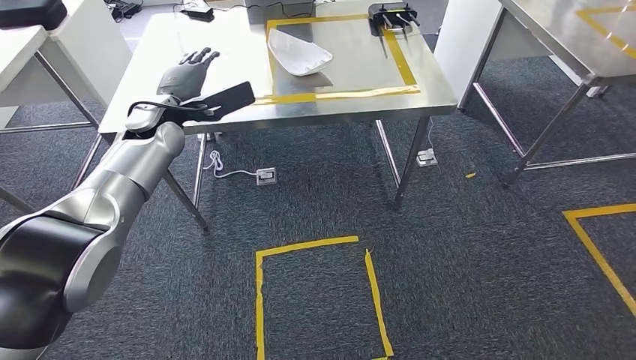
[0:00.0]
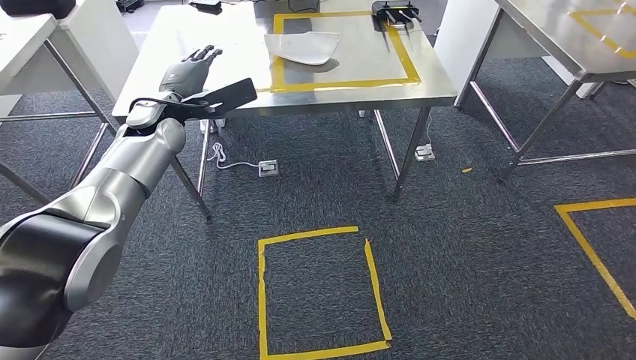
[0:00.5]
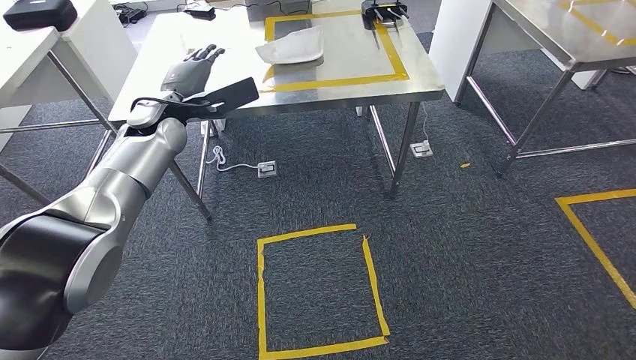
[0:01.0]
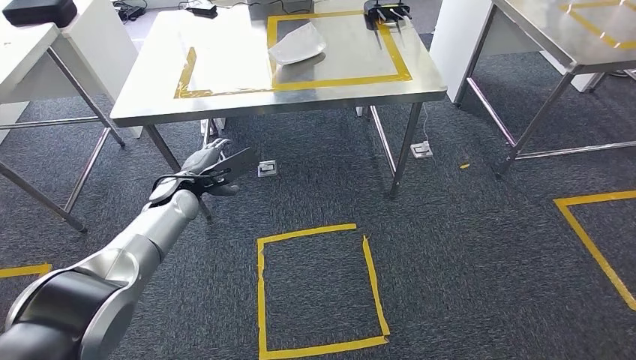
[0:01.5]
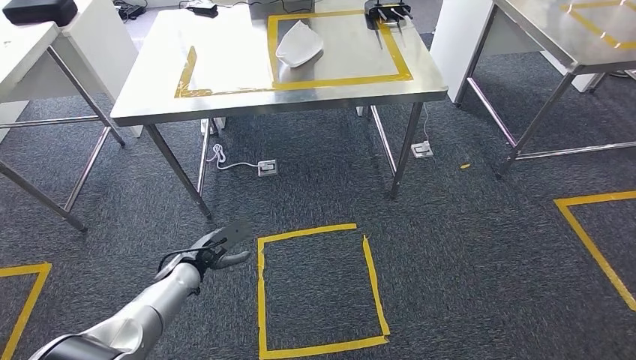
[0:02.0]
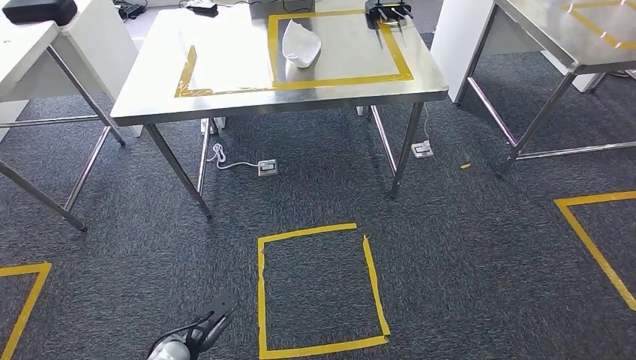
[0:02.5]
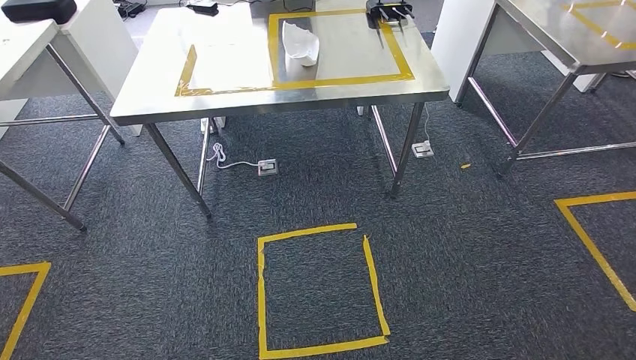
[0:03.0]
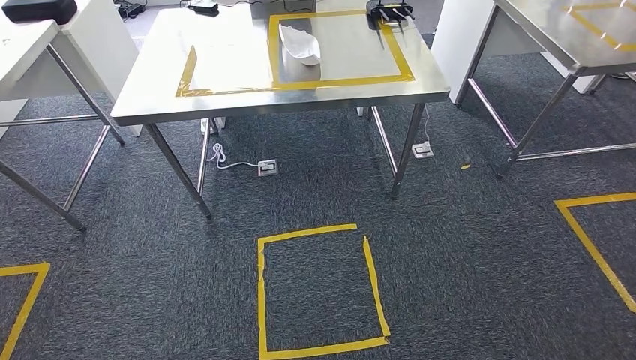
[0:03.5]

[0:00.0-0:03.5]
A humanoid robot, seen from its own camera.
Step, 0:00.0 to 0:03.5: Move to the initial position at the workbench.
0:02.0 to 0:03.5: The left hand travels backward and downward by approximately 35 cm.
